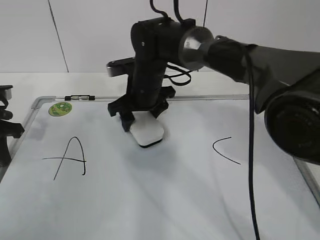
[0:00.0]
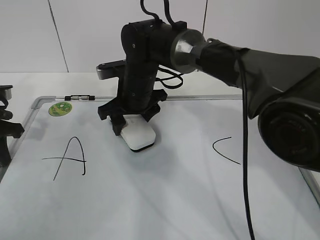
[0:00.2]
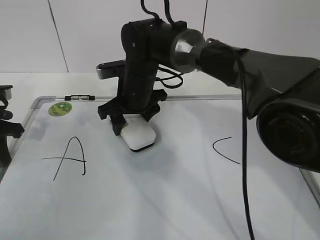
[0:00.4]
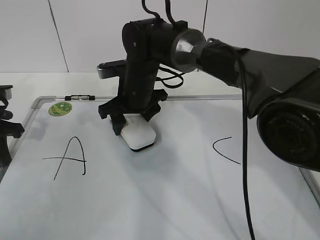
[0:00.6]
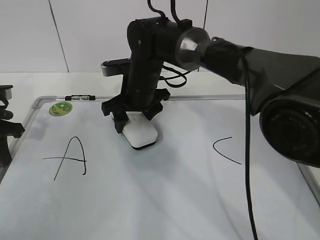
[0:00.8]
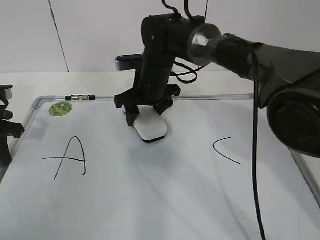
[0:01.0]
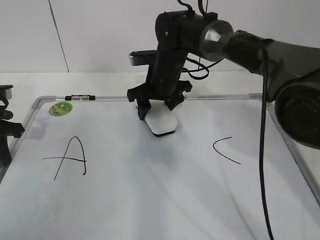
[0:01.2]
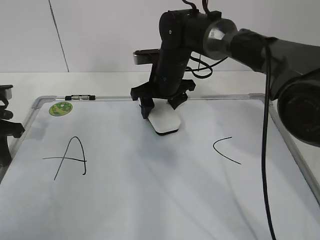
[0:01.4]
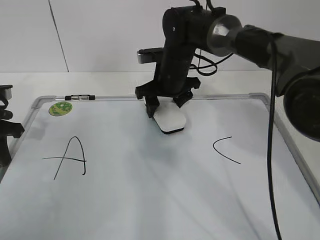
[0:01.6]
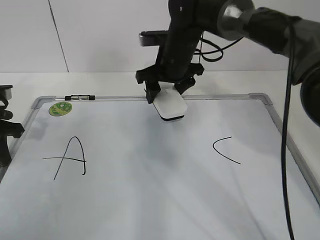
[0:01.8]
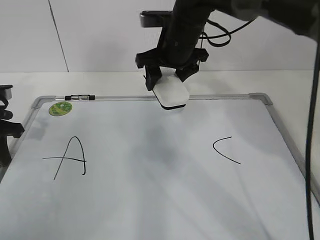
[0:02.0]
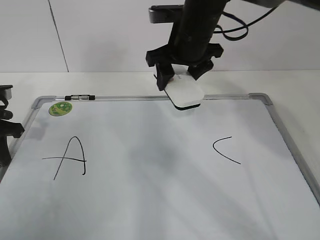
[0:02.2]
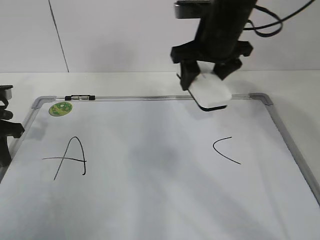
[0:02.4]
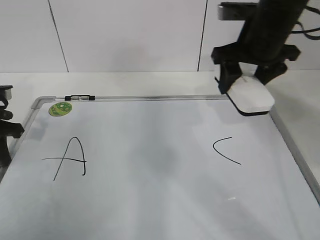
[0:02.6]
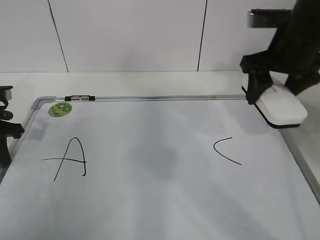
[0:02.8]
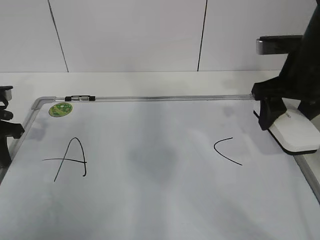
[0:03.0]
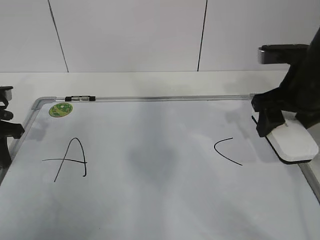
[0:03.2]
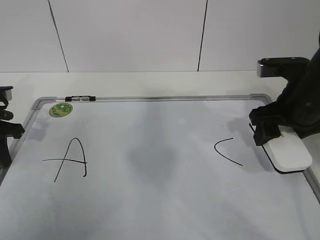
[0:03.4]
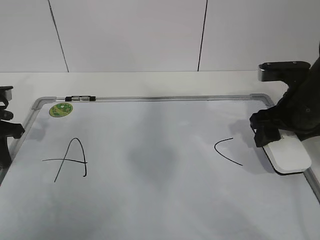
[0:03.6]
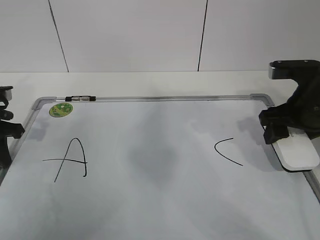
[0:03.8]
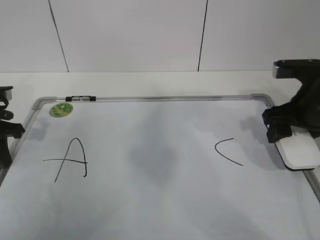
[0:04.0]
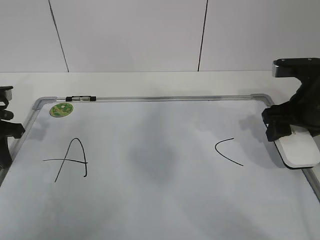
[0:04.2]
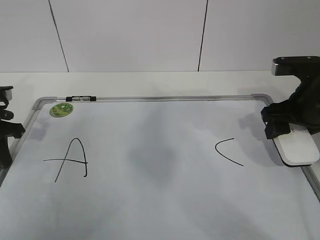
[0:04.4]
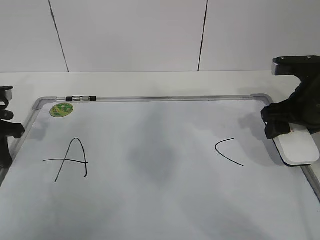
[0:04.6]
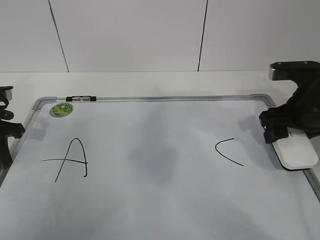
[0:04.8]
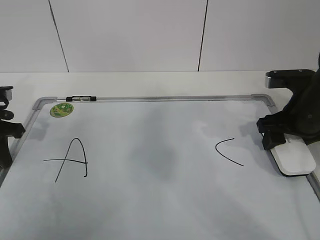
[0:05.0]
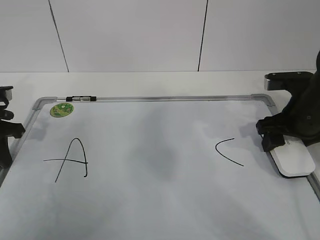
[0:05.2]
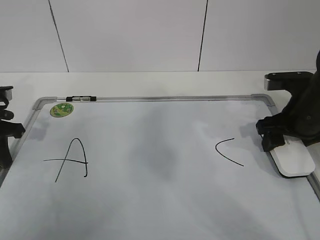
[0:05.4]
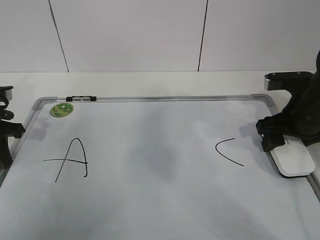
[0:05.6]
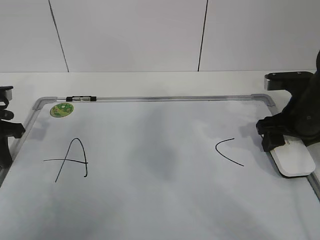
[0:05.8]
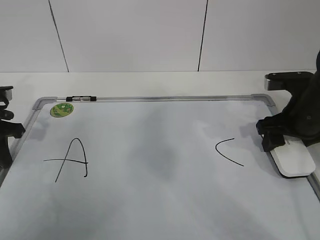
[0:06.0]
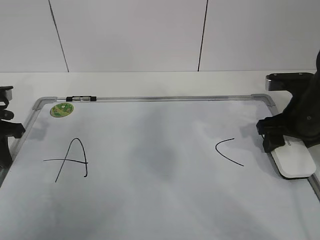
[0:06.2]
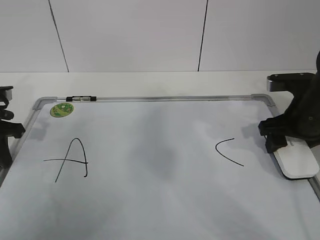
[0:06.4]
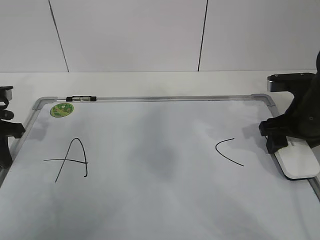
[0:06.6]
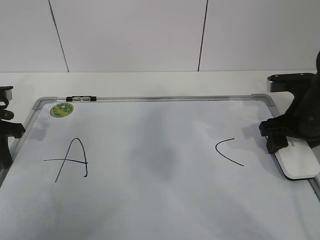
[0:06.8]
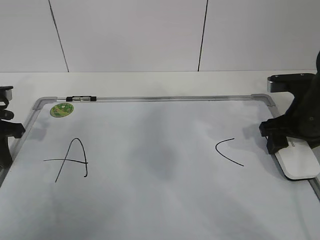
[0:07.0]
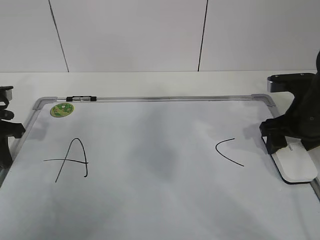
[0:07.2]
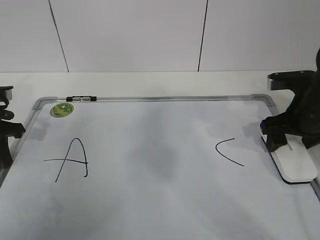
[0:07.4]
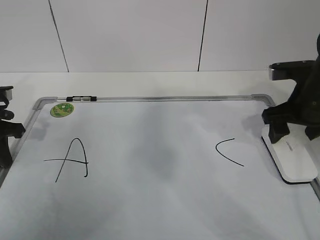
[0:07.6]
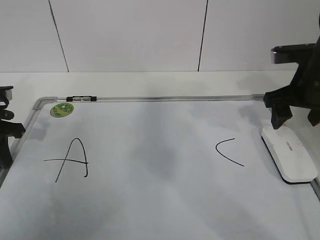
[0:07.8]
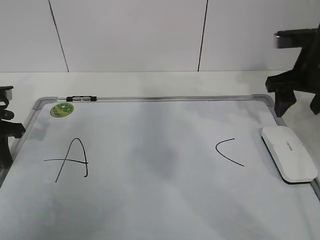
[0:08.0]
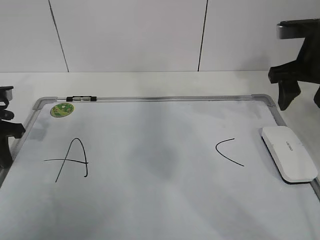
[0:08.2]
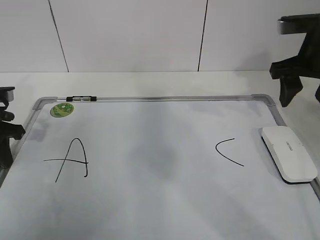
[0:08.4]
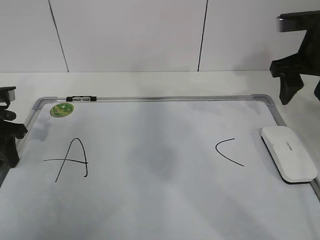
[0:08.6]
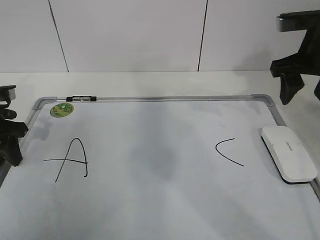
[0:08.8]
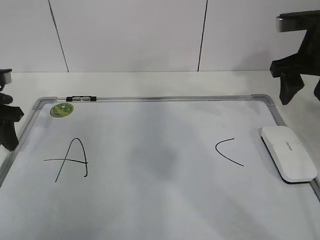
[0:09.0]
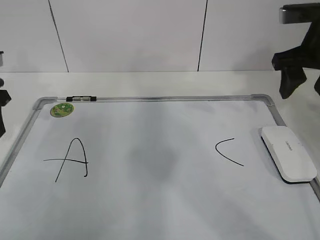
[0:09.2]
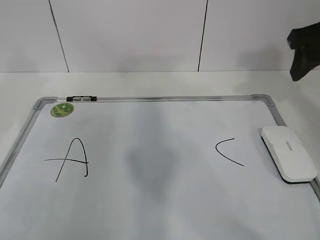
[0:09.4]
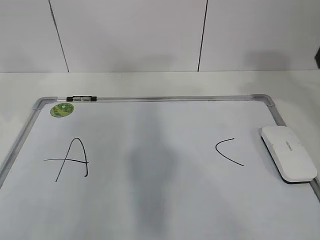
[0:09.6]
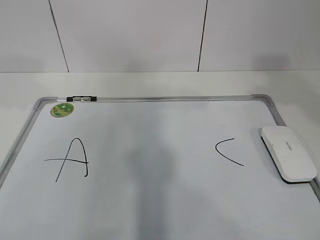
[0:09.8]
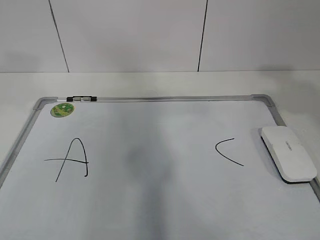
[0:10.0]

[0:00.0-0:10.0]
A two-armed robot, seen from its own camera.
Task of the whole recording: pick up the eraser on the blackboard and erase the letter "B".
Step, 0:00.0 to 0:03.0: Put down the eraser with your right hand.
0:00.0 to 0:01.4: The right gripper travels to the right by roughly 5 cm.
0:01.4 to 0:02.8: The right gripper shifts some 25 cm to the right, upward and backward.
0:02.8 to 0:04.2: The right gripper goes some 5 cm downward.
0:04.2 to 0:05.8: The grippers make only small movements.
0:05.8 to 0:07.2: The right gripper opens its fingers.
0:07.2 to 0:08.6: The left gripper opens. The right gripper moves upward, about 10 cm, and closes up.
0:08.6 to 0:10.0: The left gripper is displaced upward and backward by roughly 25 cm; the right gripper travels backward and upward by about 20 cm.

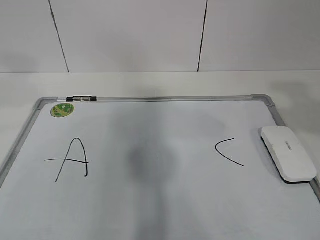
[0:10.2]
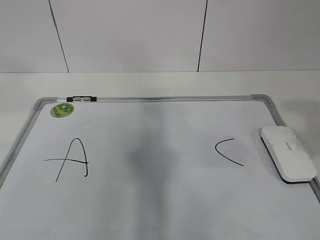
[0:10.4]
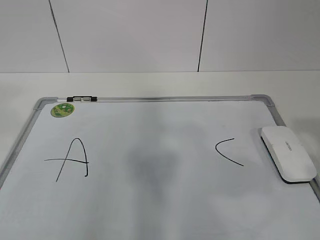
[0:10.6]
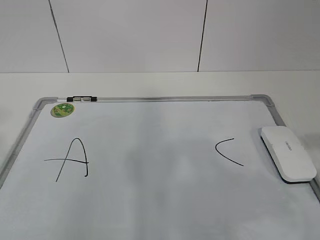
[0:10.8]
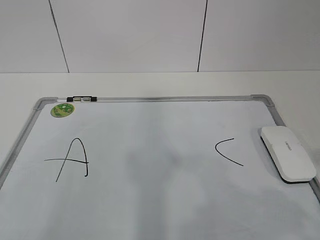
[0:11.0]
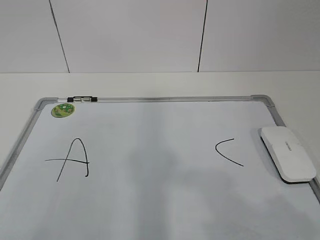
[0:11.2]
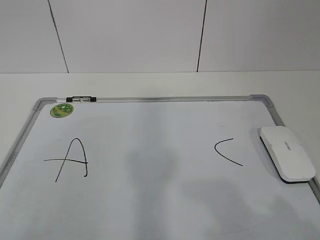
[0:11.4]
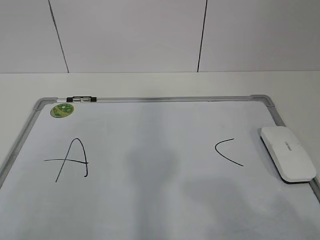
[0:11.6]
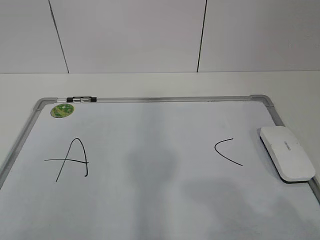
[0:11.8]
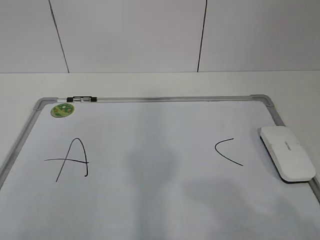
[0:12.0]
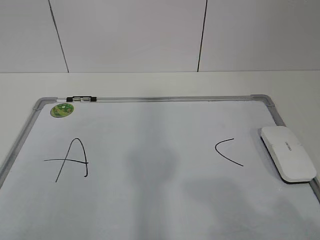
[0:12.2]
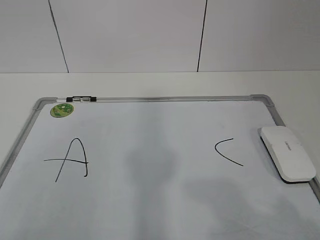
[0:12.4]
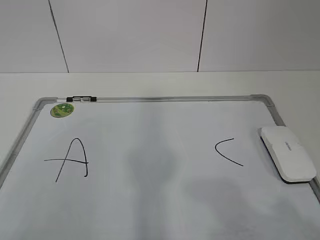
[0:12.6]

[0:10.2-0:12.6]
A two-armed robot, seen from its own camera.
Task of the whole recording: pick up the eraser on the blackboard and erase the letter "B".
0:10.2 to 0:11.4: The grippers both shift backward and downward by about 20 cm.
0:11.4 to 0:12.6: Both grippers stay put.

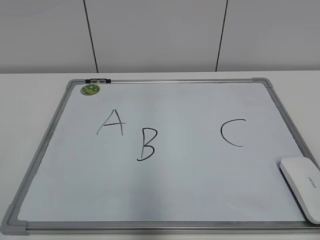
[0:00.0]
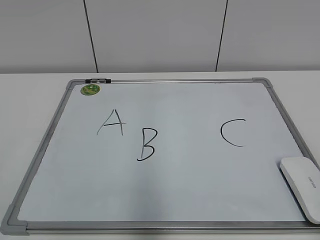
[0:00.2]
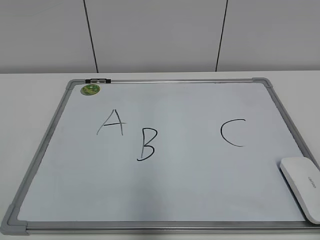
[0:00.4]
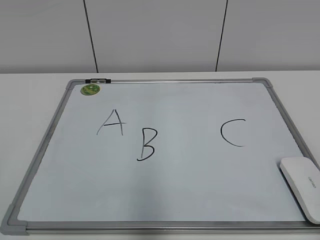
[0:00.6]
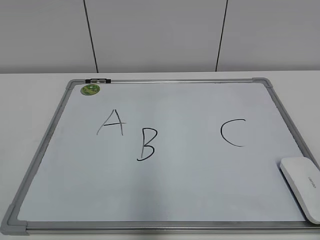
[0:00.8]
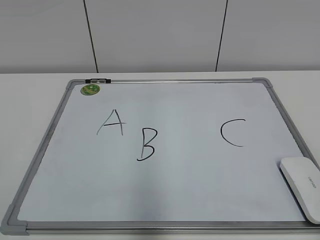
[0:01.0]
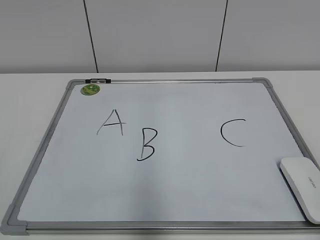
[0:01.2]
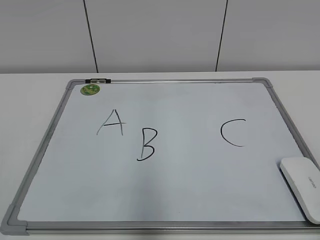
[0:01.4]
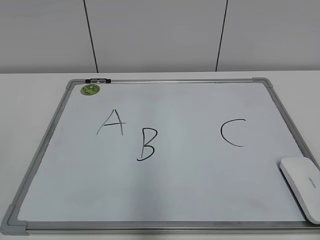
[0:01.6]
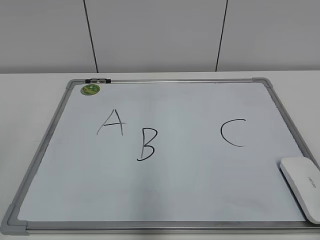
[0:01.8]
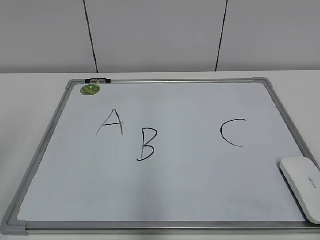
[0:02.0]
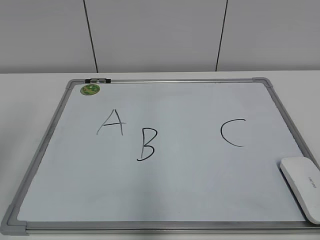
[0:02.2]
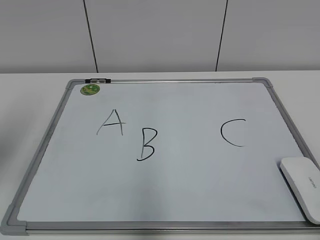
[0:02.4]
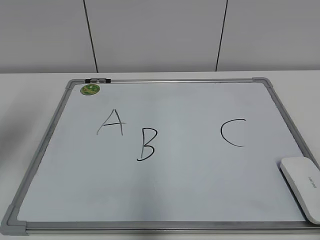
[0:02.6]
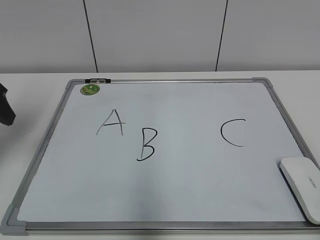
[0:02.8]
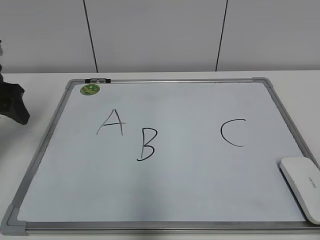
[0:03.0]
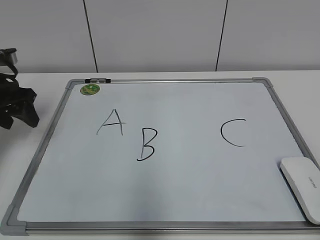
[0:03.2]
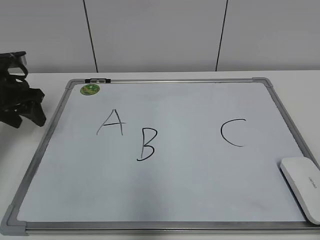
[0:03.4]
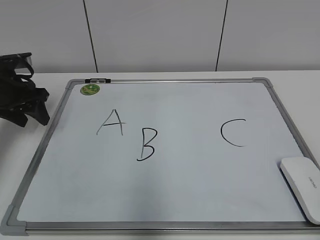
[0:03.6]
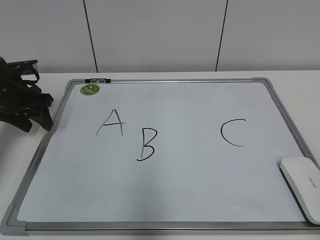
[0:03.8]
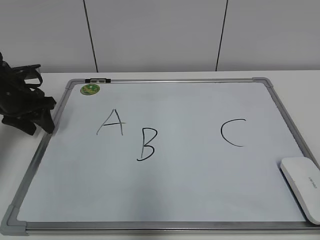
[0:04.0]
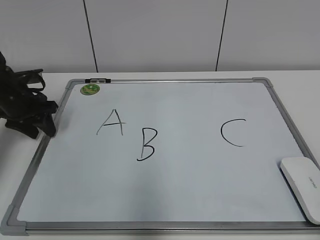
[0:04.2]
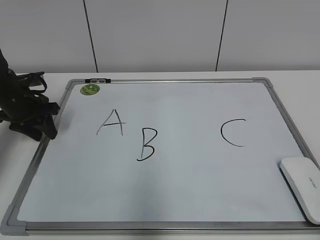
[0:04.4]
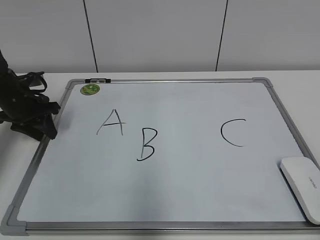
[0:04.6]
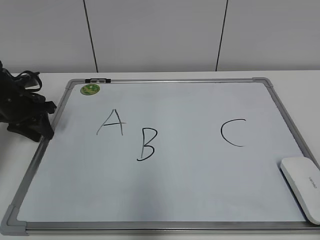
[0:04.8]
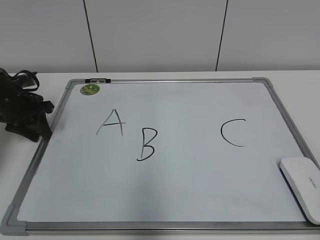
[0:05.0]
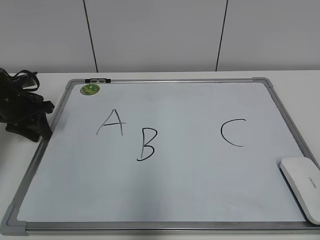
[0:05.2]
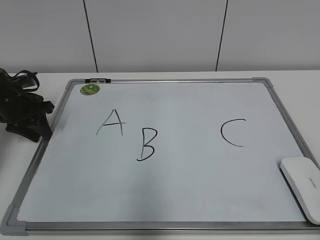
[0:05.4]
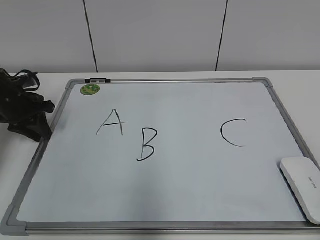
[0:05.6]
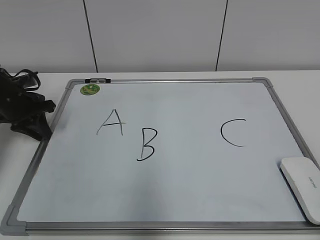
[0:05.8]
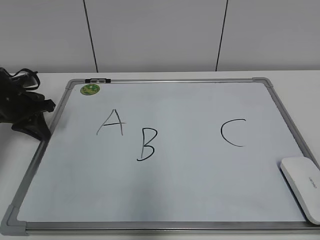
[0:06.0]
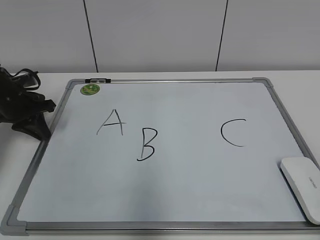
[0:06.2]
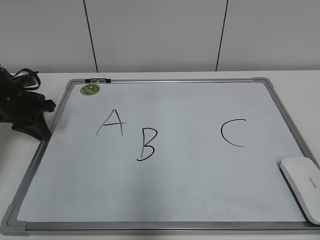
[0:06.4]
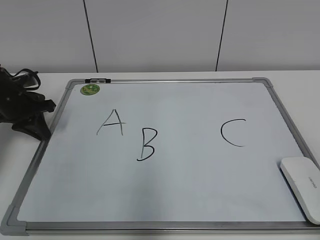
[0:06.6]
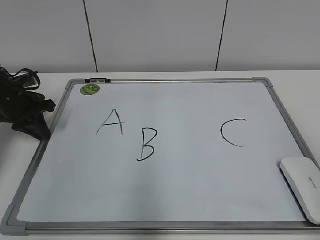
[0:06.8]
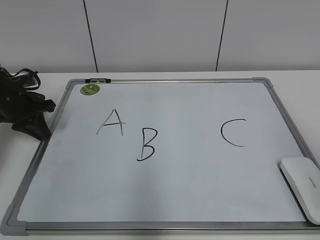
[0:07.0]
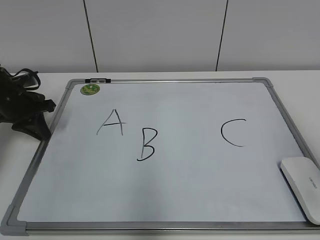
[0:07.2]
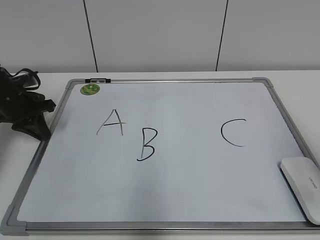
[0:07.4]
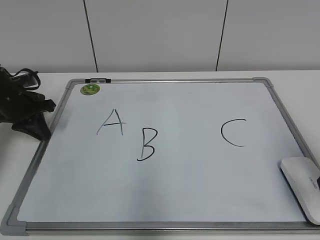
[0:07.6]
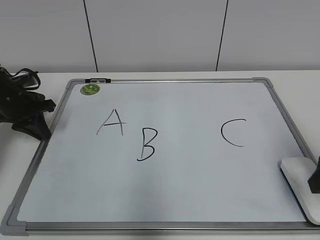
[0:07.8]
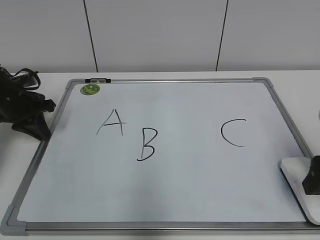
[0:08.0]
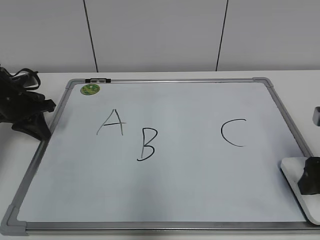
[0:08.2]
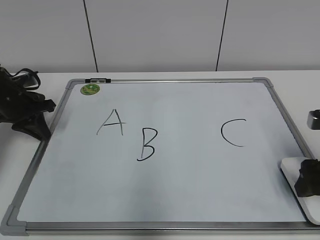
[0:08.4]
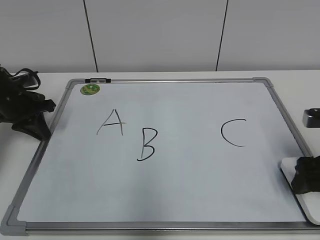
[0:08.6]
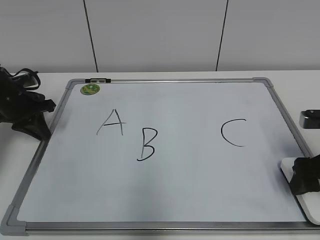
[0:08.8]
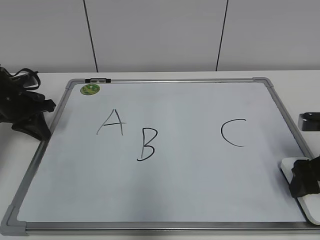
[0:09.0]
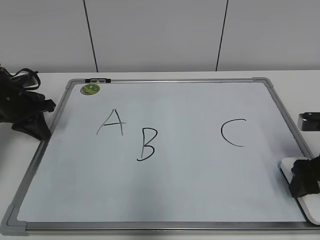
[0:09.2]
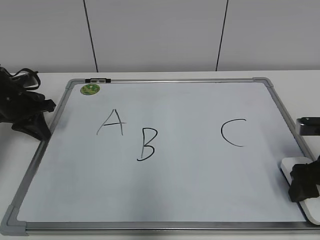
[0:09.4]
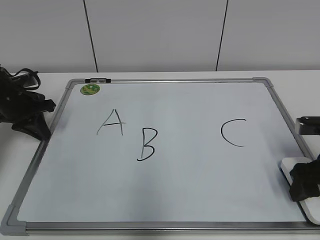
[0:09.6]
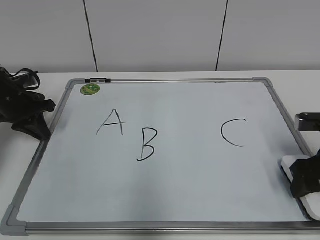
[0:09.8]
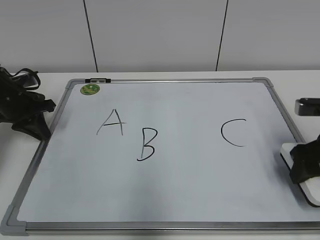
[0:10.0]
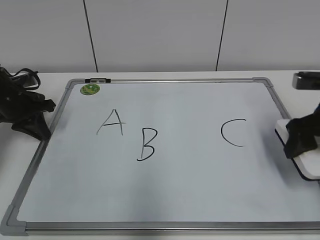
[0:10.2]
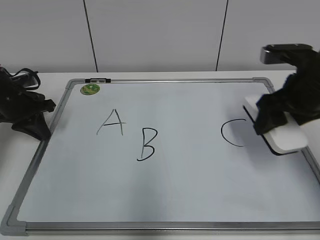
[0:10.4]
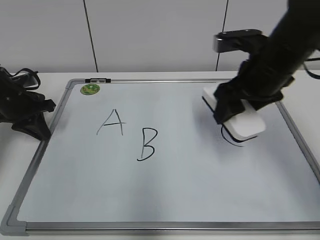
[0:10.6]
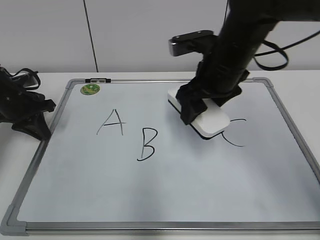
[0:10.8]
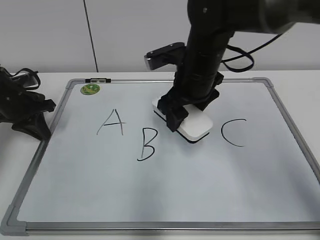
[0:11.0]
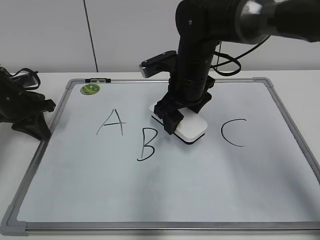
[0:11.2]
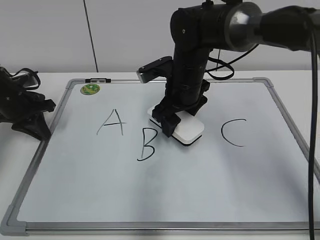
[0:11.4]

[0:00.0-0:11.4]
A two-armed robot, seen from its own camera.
Task of the whole recording: pick up the eraser on the blackboard and erase the letter "B".
Step, 0:00.0 to 0:05.8: Hold the drawing board steady with your left hand.
0:01.4 to 0:02.8: The left gripper travels forward by some 30 cm.
0:02.8 to 0:04.2: The left gripper goes approximately 15 cm downward and forward.
0:04.2 to 0:05.6: There are only small adjustments of the grippers.
0:07.2 to 0:08.6: The right gripper moves downward and forward, some 15 cm, and opens its fingers.
0:08.6 to 0:10.0: The right gripper closes its fingers.
0:10.0 to 0:11.4: The right gripper travels to the left and forward by roughly 25 cm.
